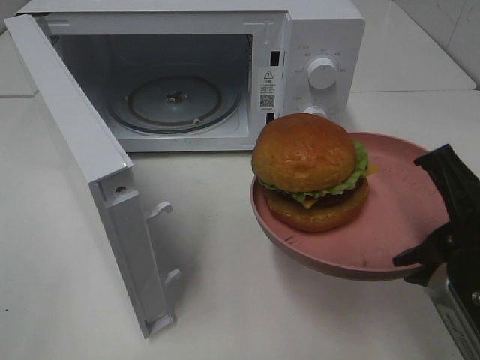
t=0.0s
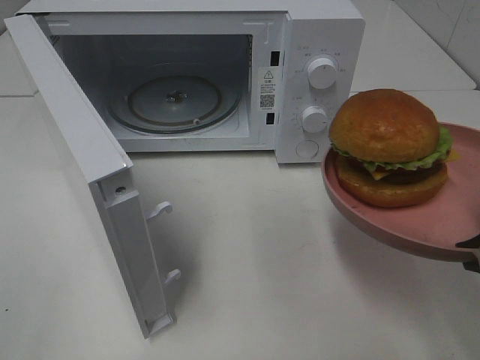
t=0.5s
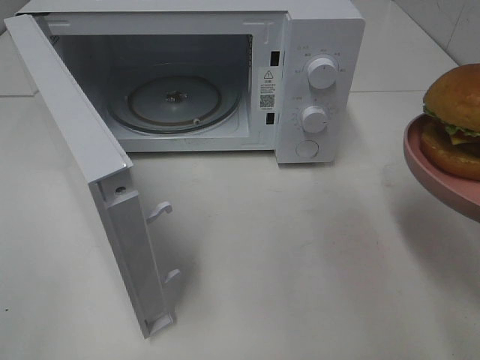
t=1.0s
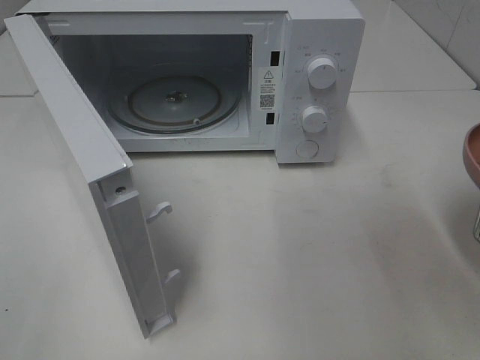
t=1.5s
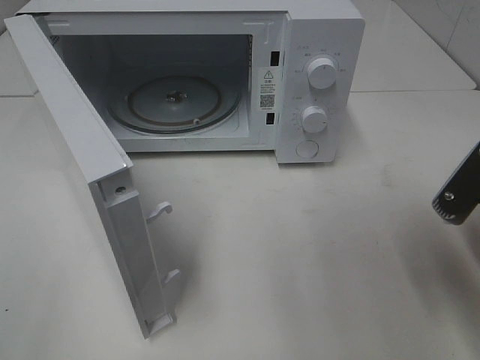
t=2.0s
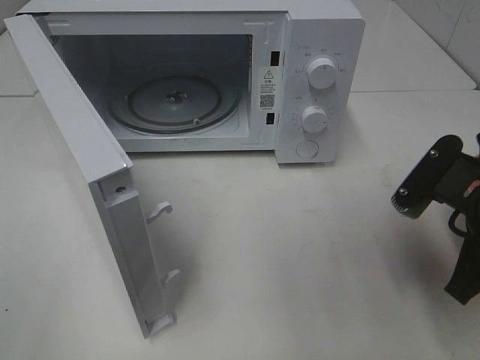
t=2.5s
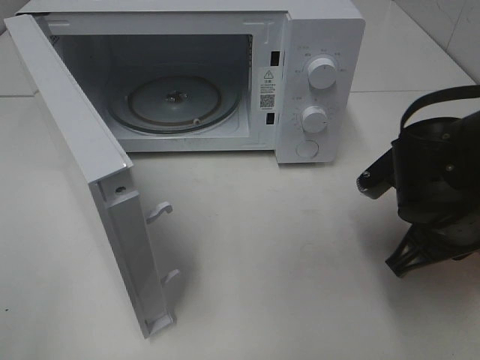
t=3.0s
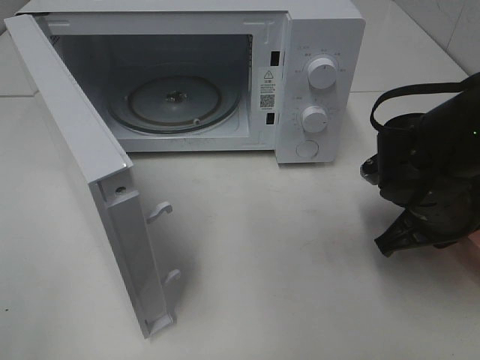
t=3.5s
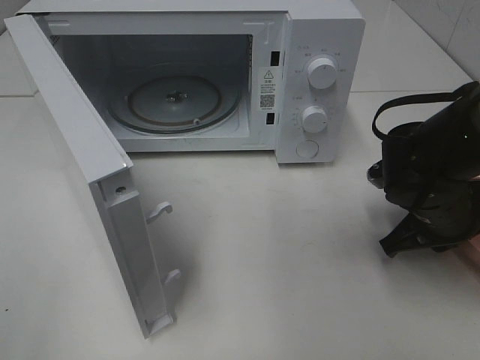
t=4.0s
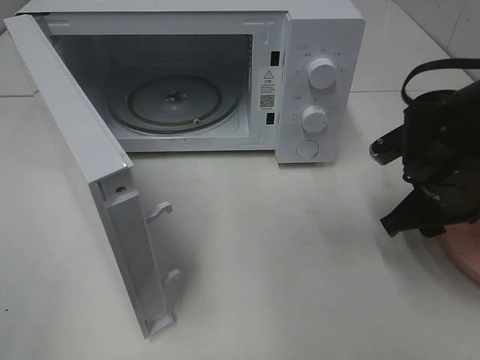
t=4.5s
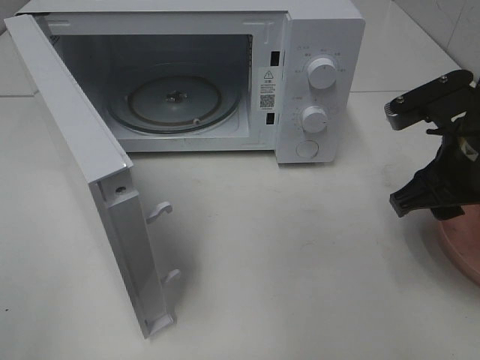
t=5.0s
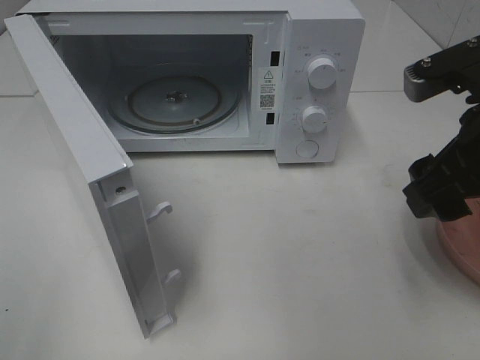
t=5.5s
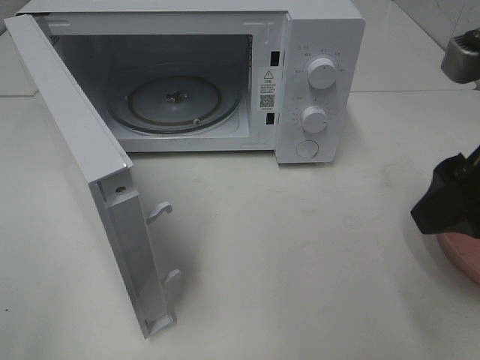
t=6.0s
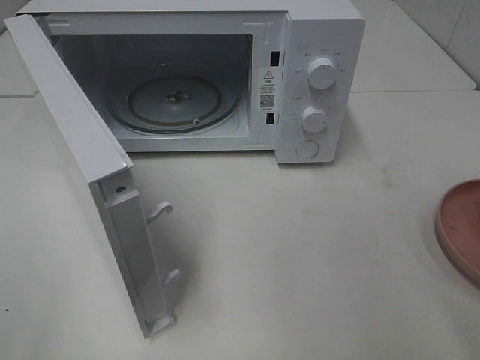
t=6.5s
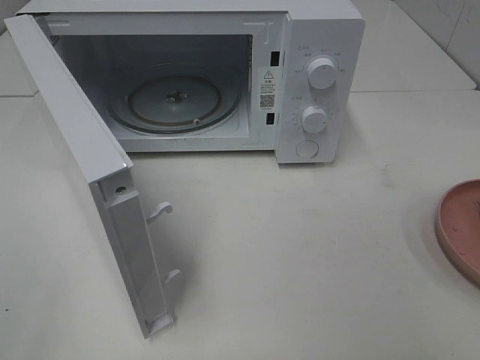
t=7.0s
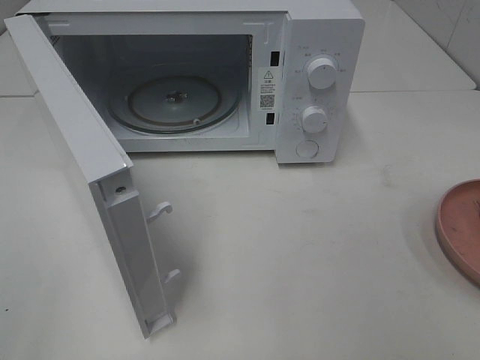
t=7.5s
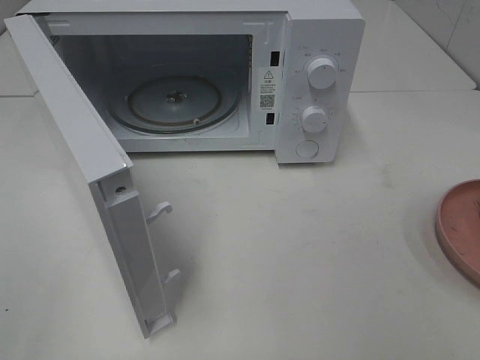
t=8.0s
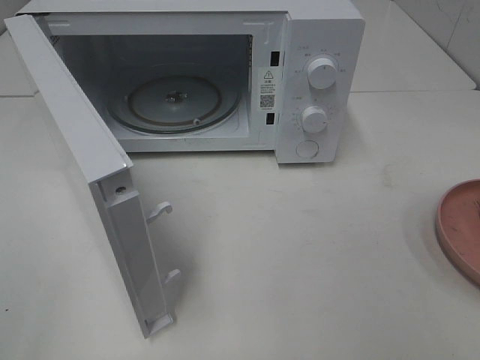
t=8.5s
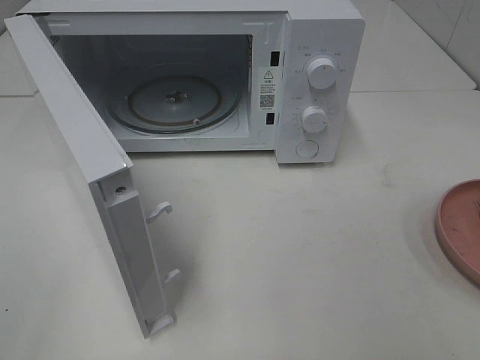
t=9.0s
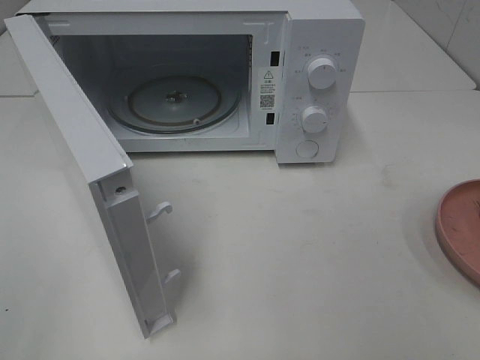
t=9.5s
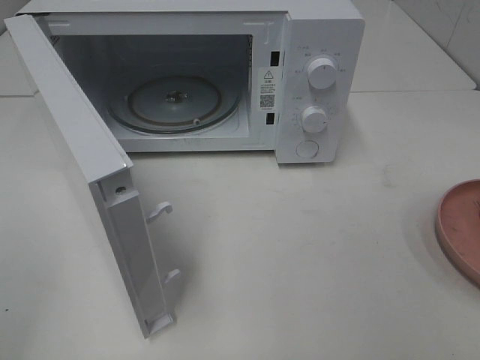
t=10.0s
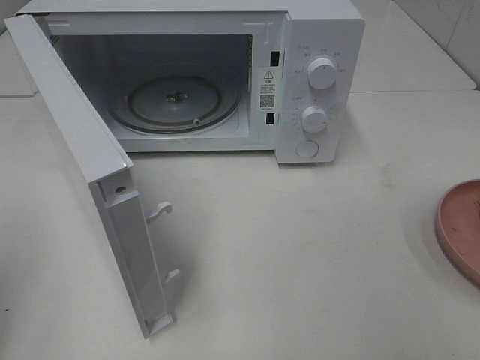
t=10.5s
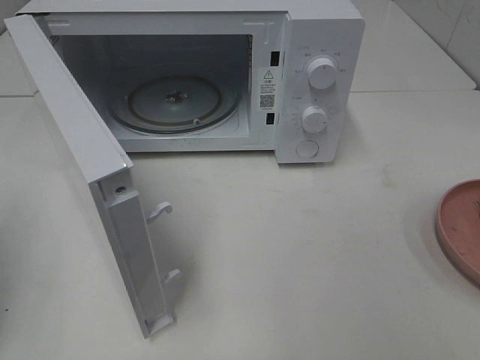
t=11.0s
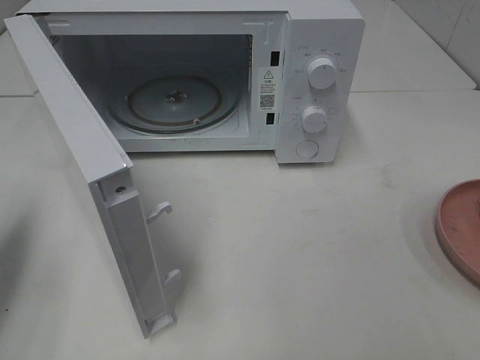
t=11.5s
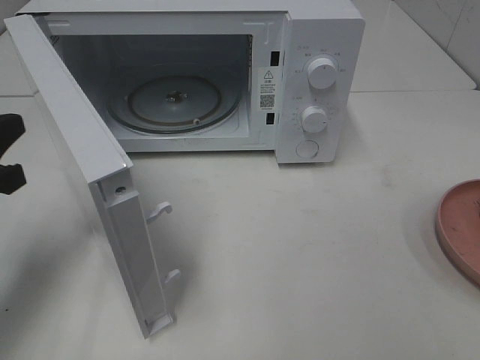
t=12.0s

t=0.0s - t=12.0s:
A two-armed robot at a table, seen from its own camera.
Task of the whole recording: Heat the burger.
Step, t=0.0s - t=4.5s: Right hand: place the plate on the table.
t=0.0s - t=2.0s: The right gripper ends up some 5 cm from where it was.
t=2.0s - t=4.0s: The right gripper shifts some 15 cm forward and downward.
t=4.0s - t=6.0s: The right gripper moves upward and backward, some 20 cm, and opens its fingers.
t=6.0s - t=8.0s: The right gripper moves backward and to the right, about 20 cm.
t=10.0s - t=12.0s: The left gripper is displaced forward and downward by roughly 20 cm, and closes.

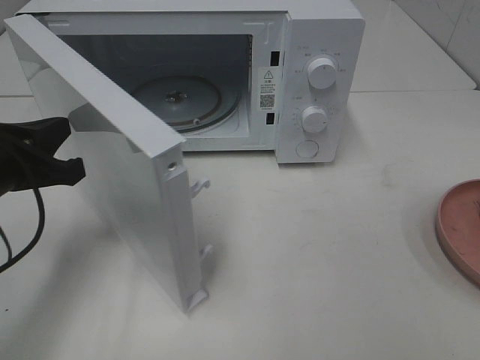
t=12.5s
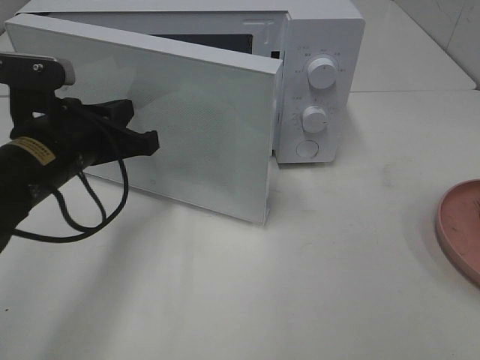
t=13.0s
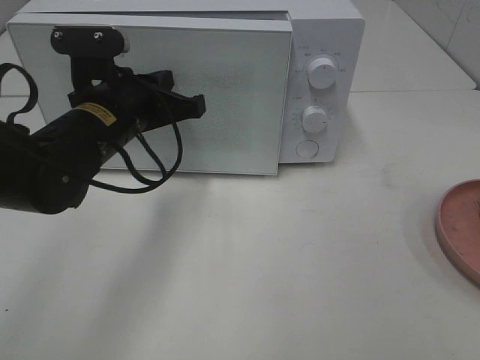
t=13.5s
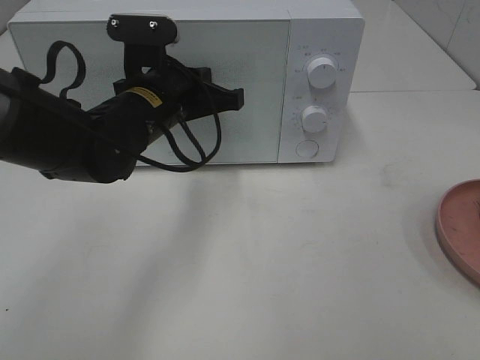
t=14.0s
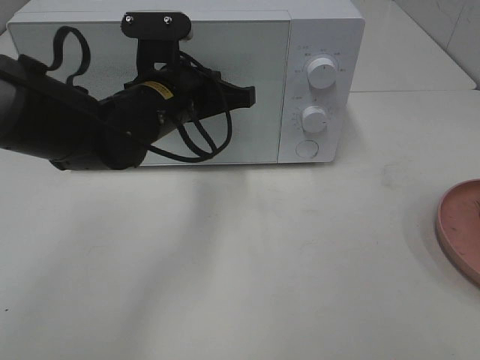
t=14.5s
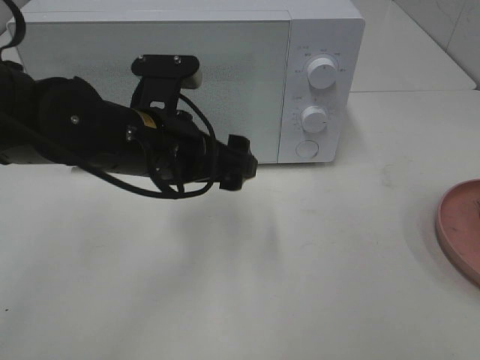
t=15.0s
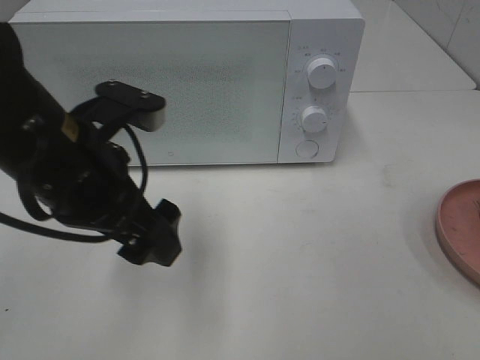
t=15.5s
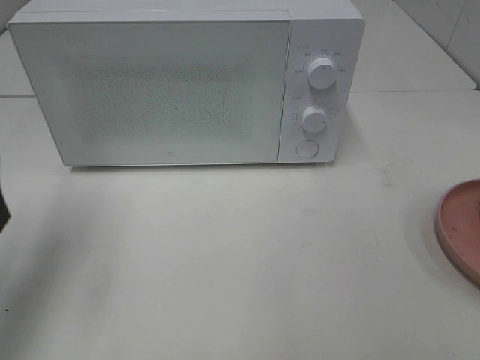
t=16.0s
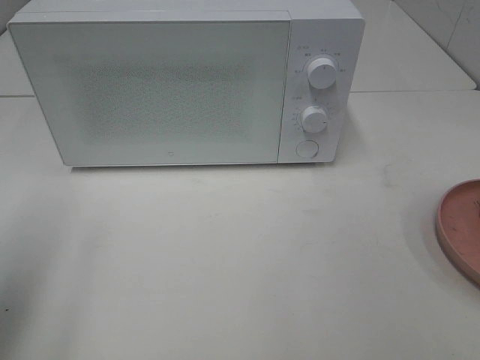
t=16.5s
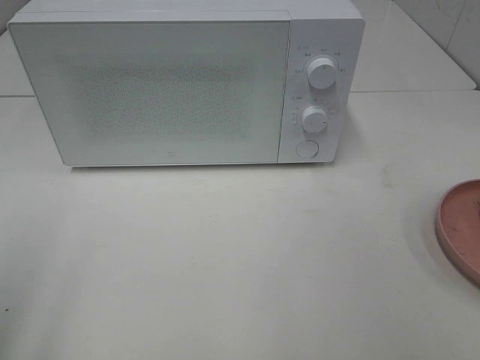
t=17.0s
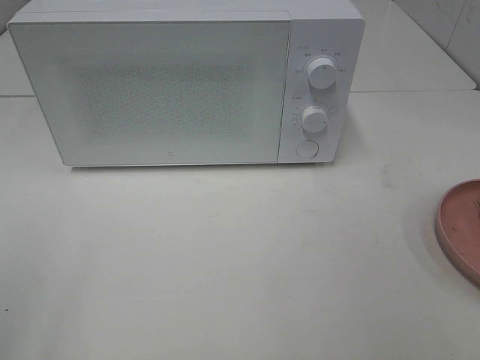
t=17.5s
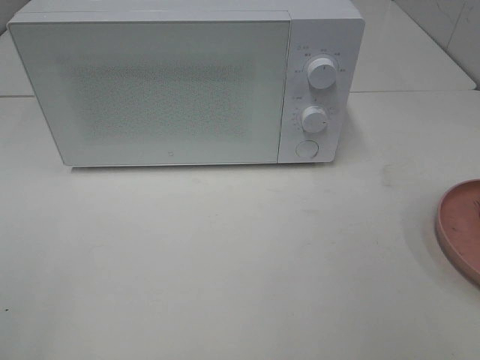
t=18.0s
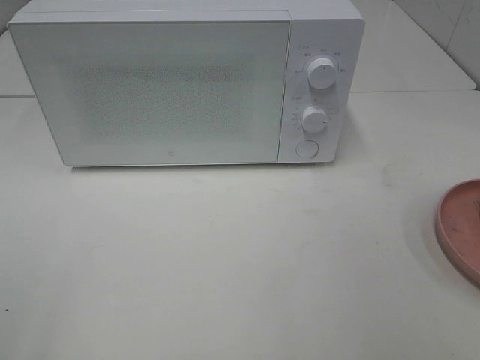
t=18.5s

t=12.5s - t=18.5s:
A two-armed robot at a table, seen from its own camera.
Task of the whole recording: Heat the burger.
Step, t=12.5s - t=14.5s: Left hand: close the microwave door.
t=12.5s - t=14.5s: The left gripper is displaced to the right and forward by some 20 cm.
t=14.5s - t=16.5s: The left gripper travels to the left, backward and upward by some 35 cm, and opens its fingers.
t=16.5s - t=18.5s: The left gripper heads backward, covering some 15 cm.

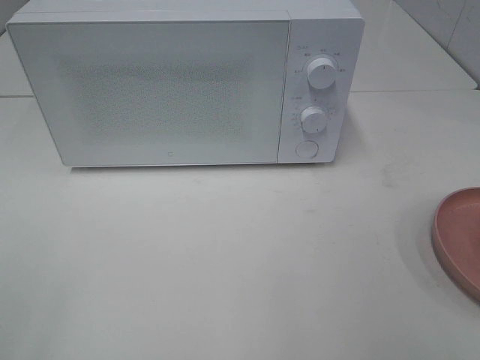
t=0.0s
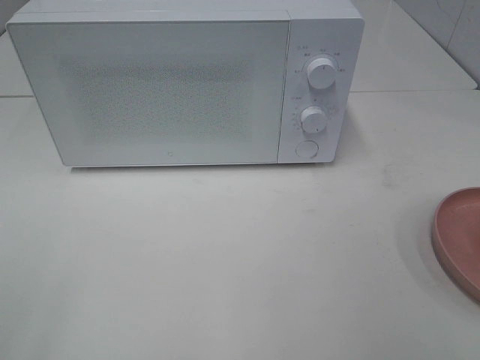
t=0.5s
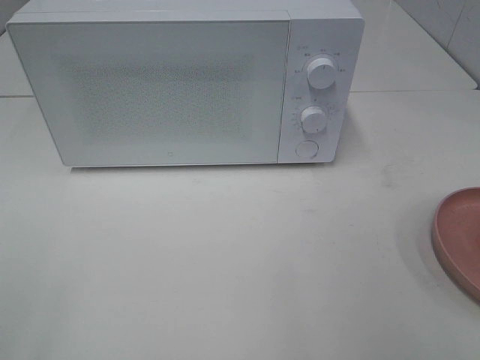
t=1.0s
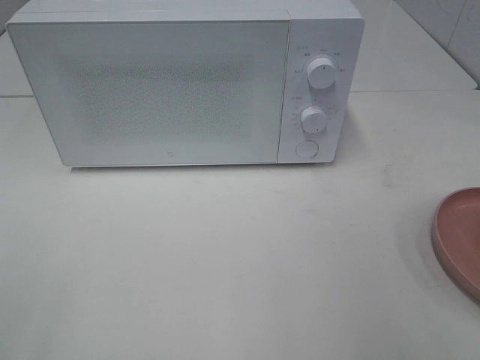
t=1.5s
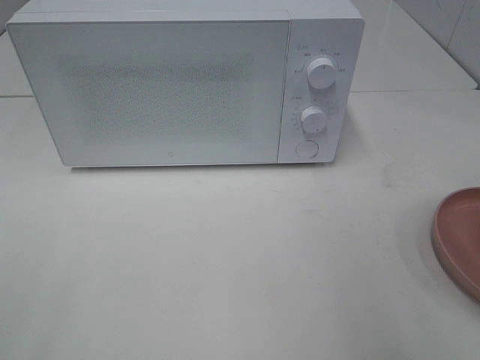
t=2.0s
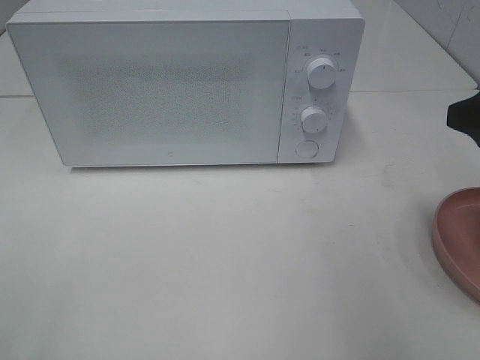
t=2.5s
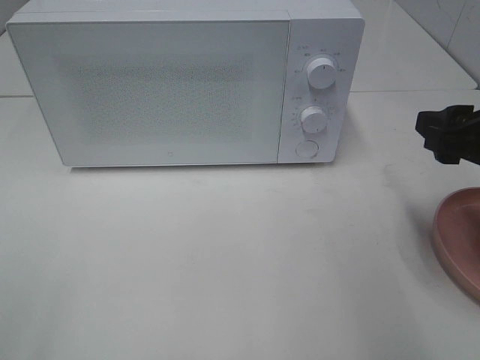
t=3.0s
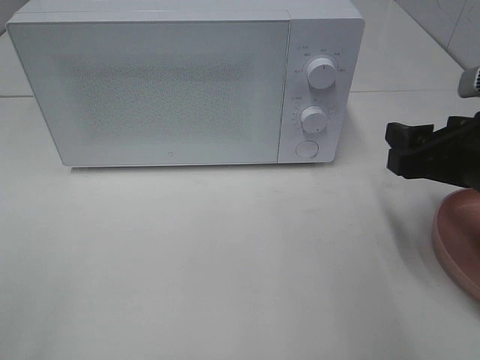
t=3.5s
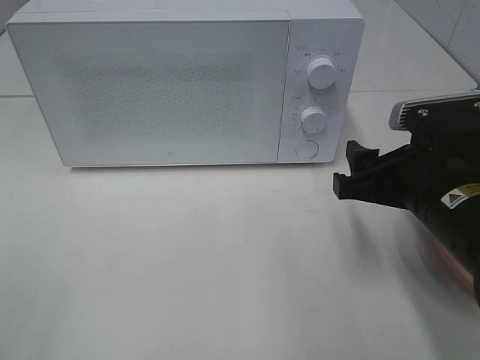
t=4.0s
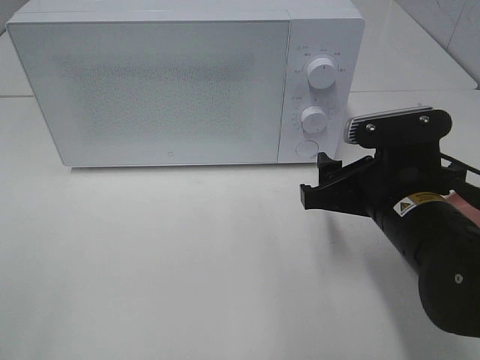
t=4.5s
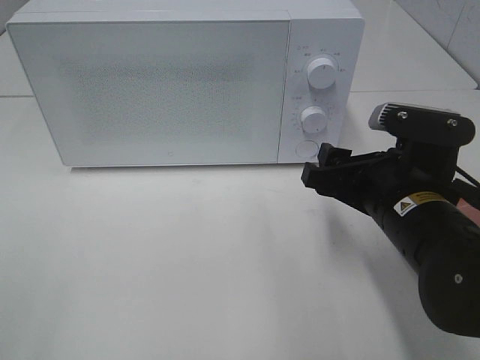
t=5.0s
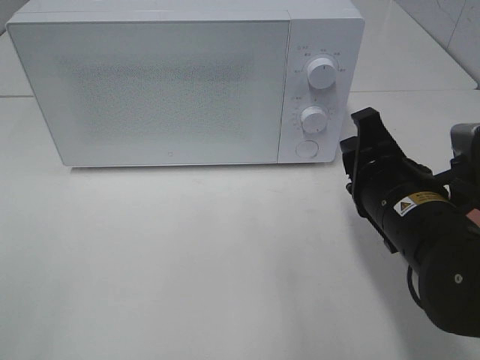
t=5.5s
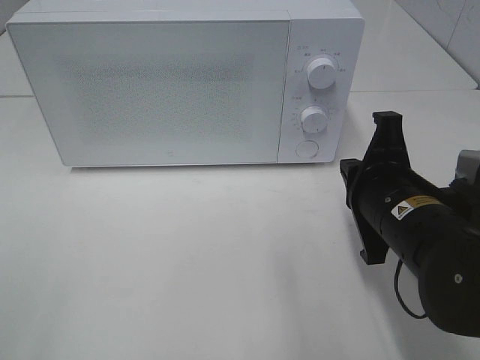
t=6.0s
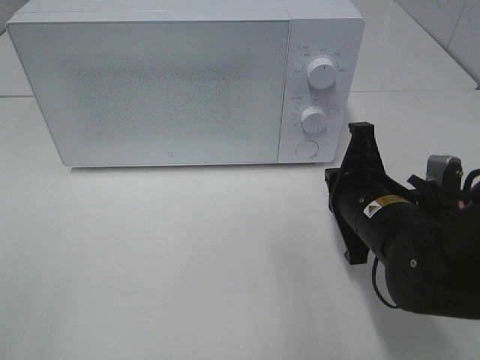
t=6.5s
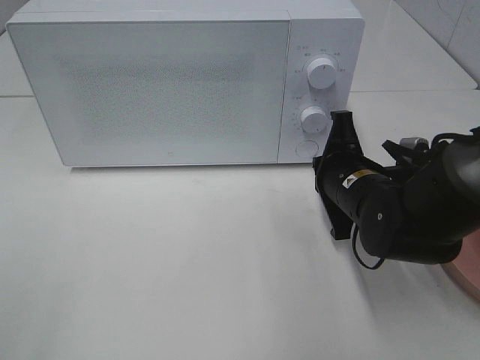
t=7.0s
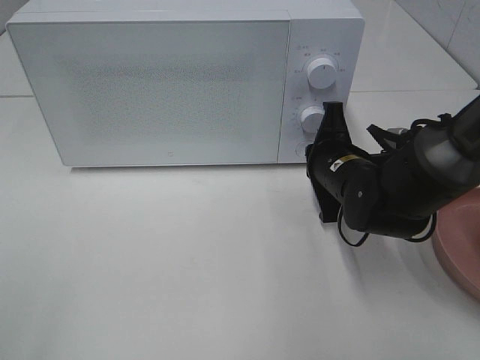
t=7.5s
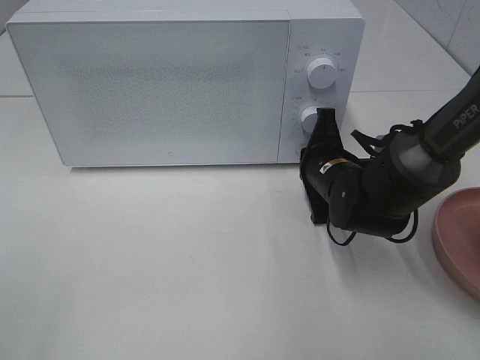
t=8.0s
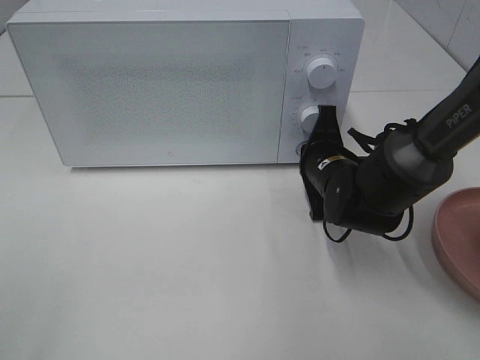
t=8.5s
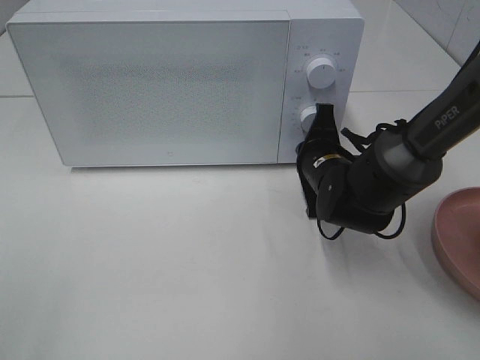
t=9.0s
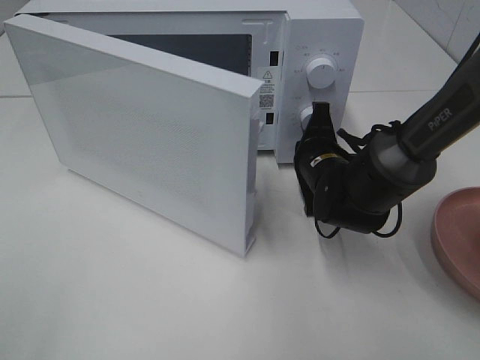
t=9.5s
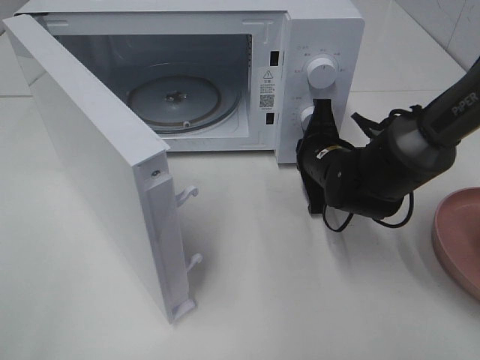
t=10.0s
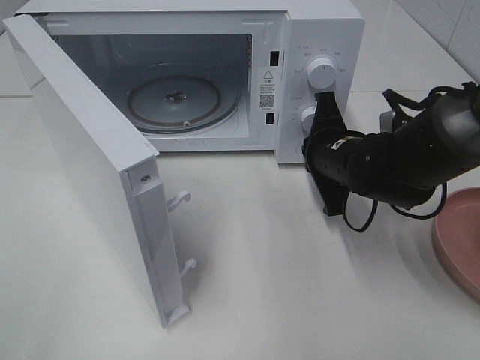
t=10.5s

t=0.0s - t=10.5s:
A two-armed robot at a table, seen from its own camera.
Task of the whole recording: Heat the burger.
t=2.0s - t=4.0s: The right gripper heads downward, to the left and forward, covering approximately 15 cm.
t=4.0s - t=6.5s: The right gripper shifts by roughly 5 cm, and closes.
t=6.5s - t=8.5s: The right gripper is displaced forward by some 10 cm.
